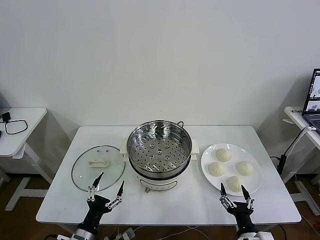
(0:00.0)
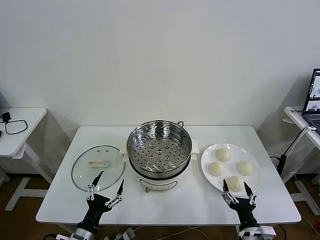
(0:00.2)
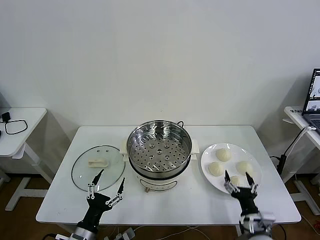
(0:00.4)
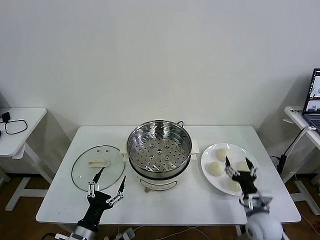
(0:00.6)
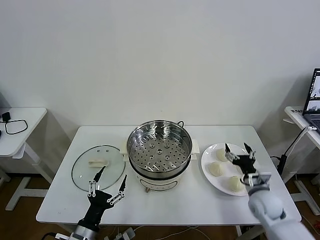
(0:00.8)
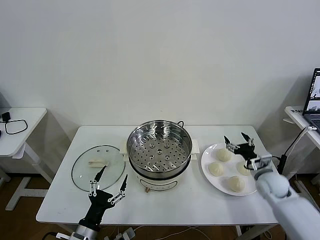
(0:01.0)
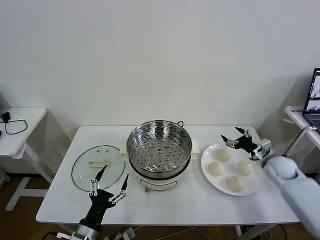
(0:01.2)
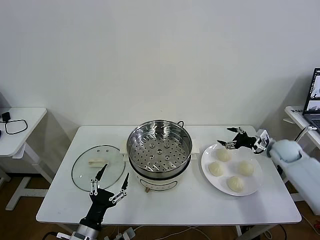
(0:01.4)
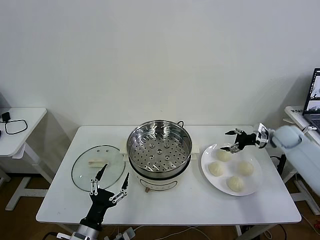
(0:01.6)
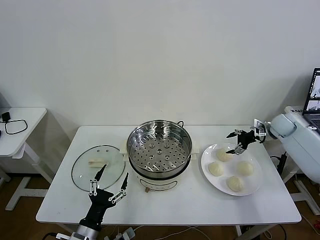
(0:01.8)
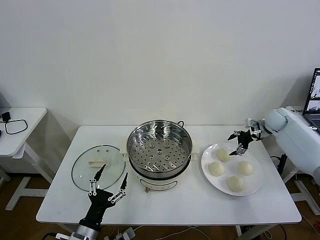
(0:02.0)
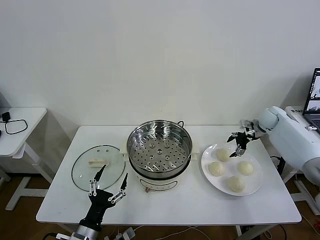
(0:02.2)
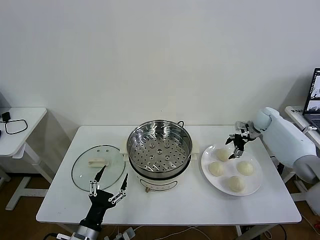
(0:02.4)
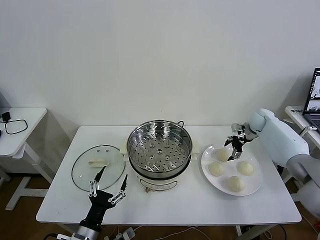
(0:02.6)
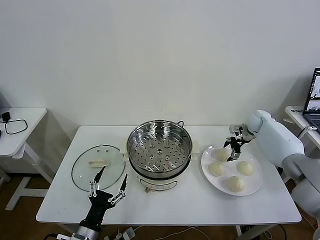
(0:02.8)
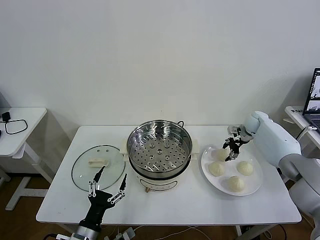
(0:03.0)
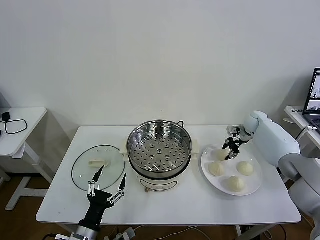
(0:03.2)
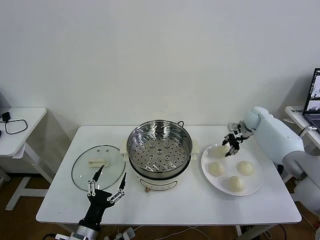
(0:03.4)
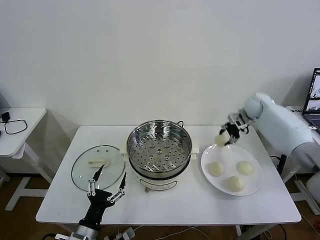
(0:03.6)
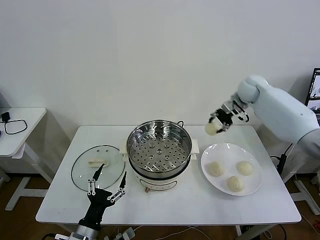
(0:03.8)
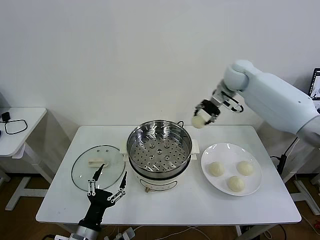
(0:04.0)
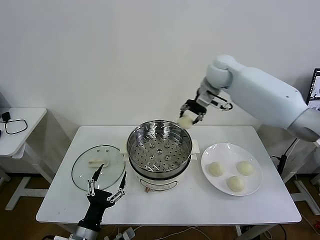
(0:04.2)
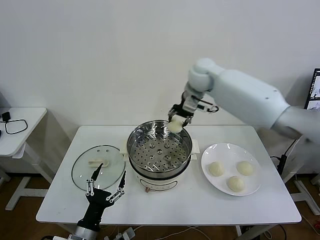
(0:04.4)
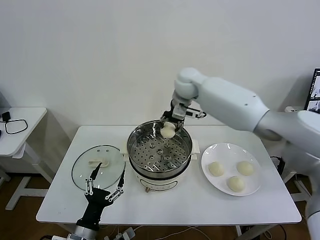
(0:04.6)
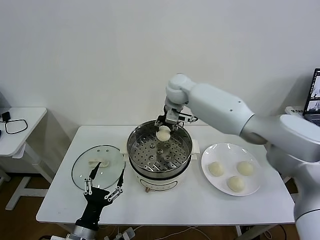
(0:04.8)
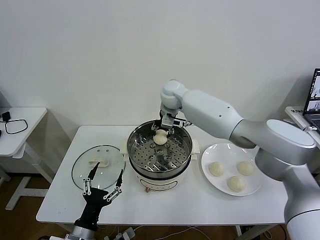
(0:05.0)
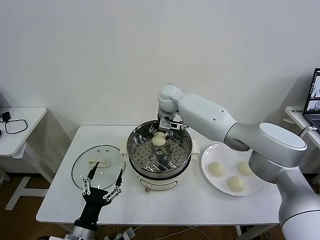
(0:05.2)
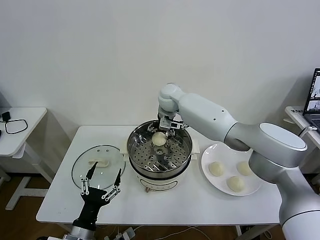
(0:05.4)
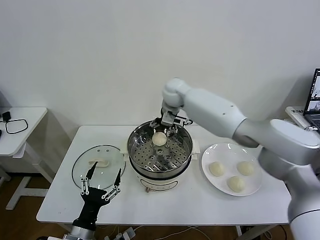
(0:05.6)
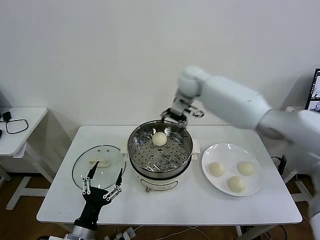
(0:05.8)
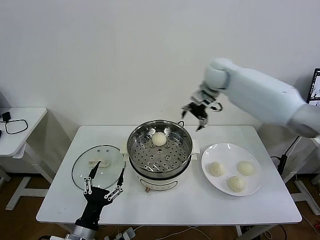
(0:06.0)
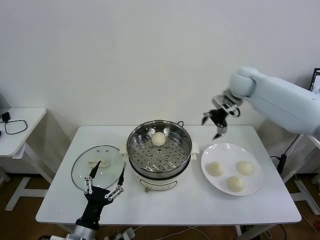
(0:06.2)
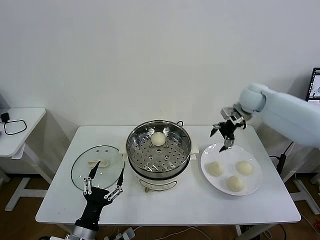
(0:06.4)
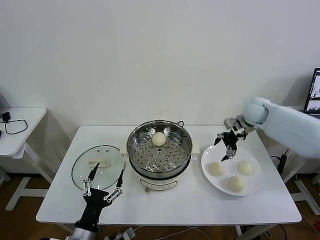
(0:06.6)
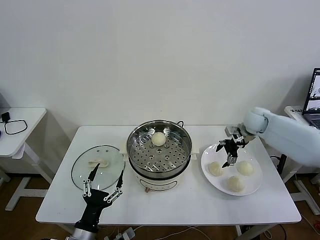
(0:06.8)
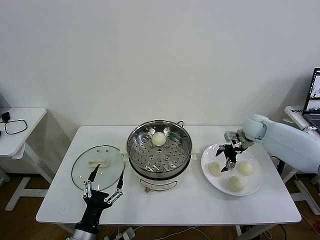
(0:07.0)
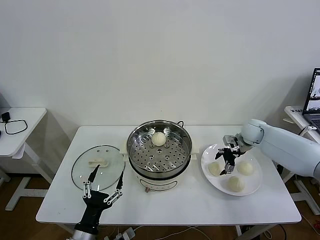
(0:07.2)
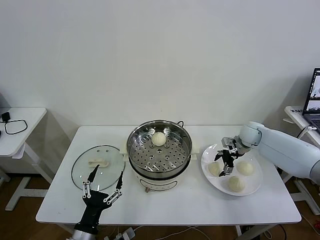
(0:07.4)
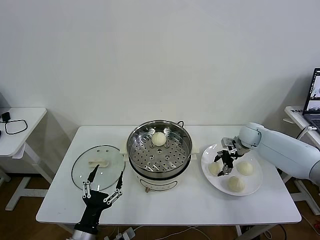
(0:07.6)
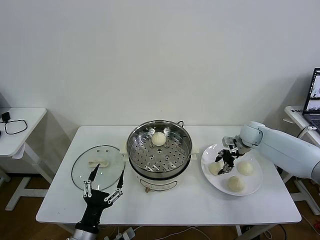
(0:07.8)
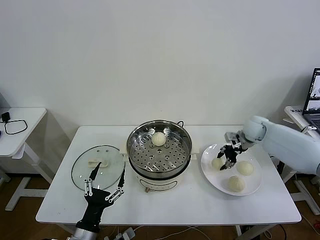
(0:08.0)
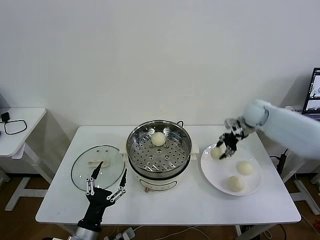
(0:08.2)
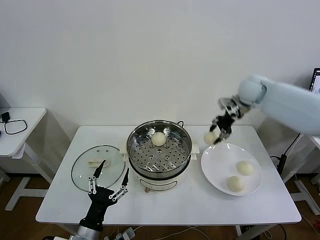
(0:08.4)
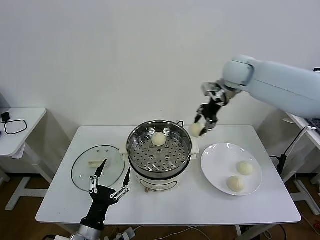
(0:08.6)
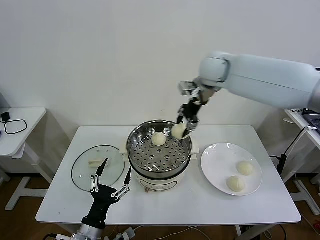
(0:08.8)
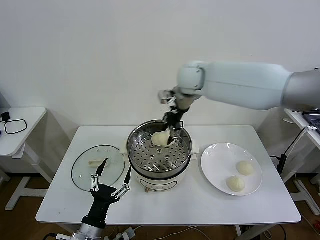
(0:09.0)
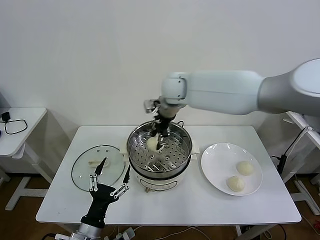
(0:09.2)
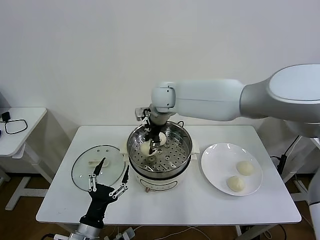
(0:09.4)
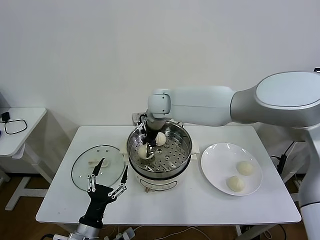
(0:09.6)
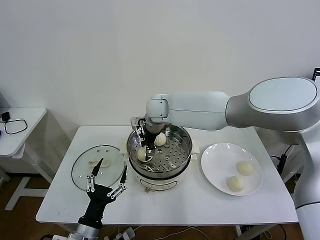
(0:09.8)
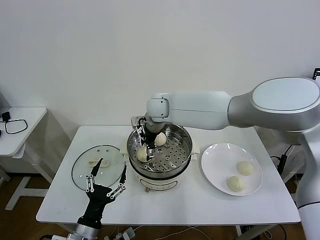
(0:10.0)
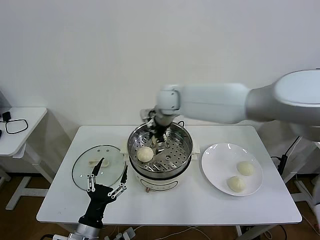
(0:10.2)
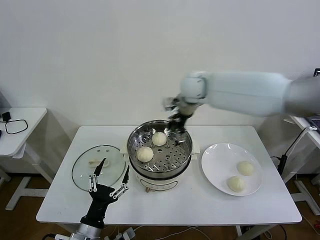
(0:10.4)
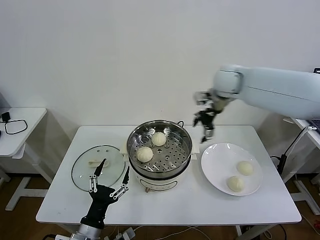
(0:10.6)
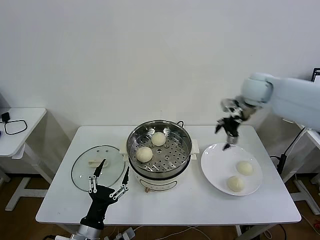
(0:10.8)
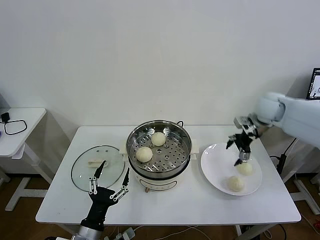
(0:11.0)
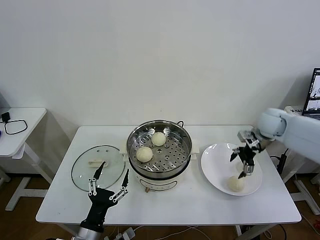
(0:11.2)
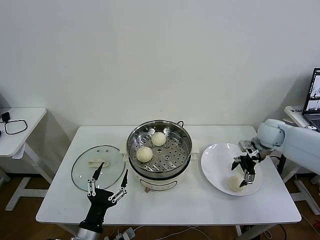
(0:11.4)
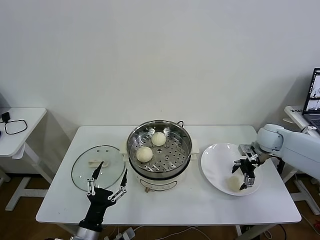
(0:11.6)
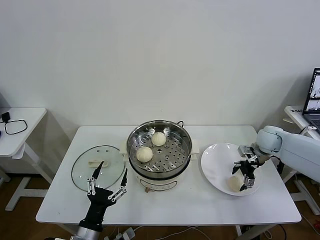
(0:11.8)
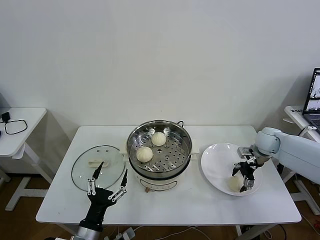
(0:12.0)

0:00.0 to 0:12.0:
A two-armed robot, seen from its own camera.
Task of the whole recording: take steamed baozi put them in steamer then cover it.
Step, 0:00.0 to 0:03.2: Grasp the baozi in the plate with right gripper.
Step, 0:03.4 to 0:05.4: Place the baozi on the steamer with right gripper.
Step, 0:05.6 to 0:07.8: Grasp the baozi in the plate with right gripper.
Step, 0:08.0 to 0:09.8: Place the baozi on the steamer with right gripper.
0:01.6 to 0:03.0: The right gripper shifts about 10 cm forward and to the left, and closes up.
0:03.0 to 0:04.4: The right gripper travels to the left and upward by about 35 cm.
0:04.4 to 0:06.0: The right gripper shifts roughly 10 cm to the right, and opens.
0:06.0 to 0:07.6: The right gripper travels downward and to the right by approximately 25 cm, and closes its fingers.
0:07.6 to 0:09.0: The right gripper moves to the left and upward, some 35 cm, and closes.
0:09.0 to 0:10.4: The right gripper goes some 5 cm to the right, and opens up.
0:10.4 to 0:12.0: The right gripper heads to the right and downward, covering some 35 cm.

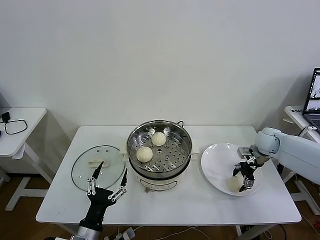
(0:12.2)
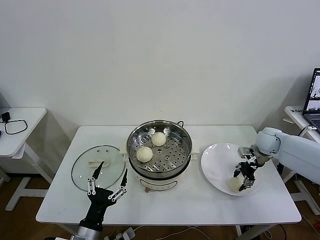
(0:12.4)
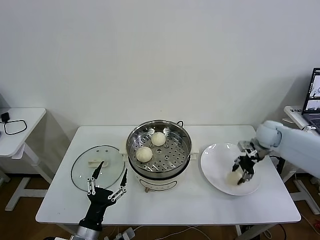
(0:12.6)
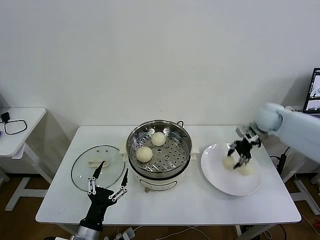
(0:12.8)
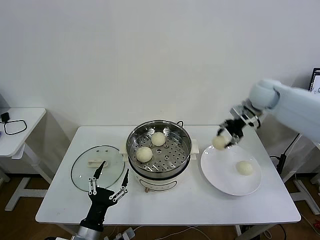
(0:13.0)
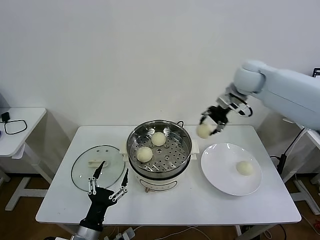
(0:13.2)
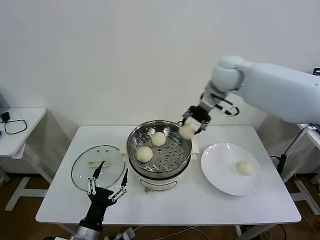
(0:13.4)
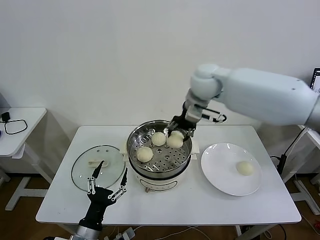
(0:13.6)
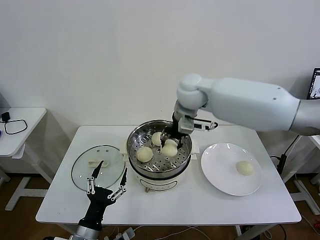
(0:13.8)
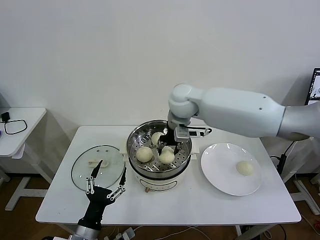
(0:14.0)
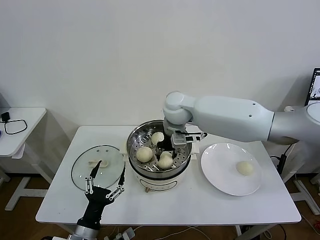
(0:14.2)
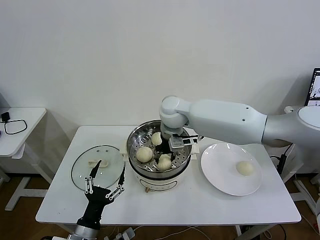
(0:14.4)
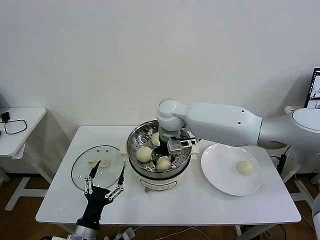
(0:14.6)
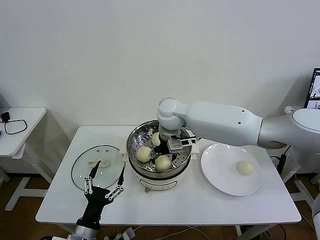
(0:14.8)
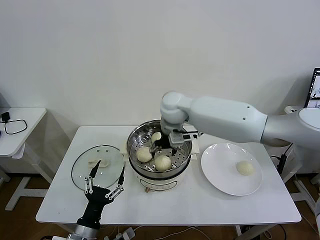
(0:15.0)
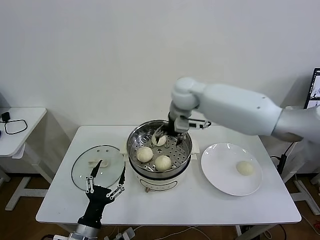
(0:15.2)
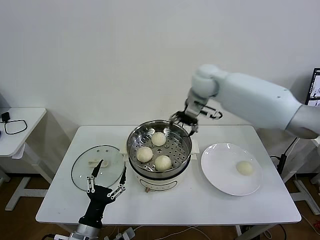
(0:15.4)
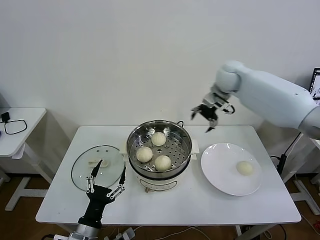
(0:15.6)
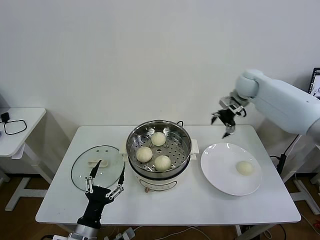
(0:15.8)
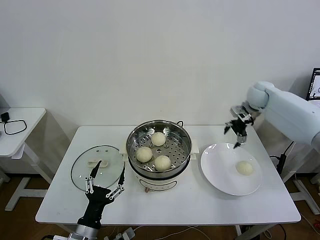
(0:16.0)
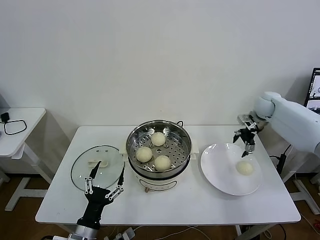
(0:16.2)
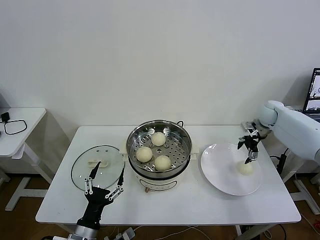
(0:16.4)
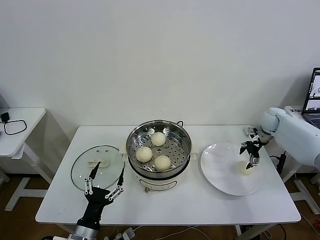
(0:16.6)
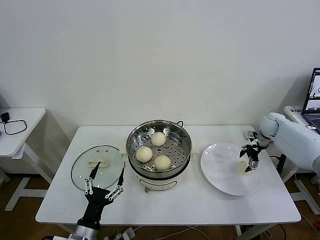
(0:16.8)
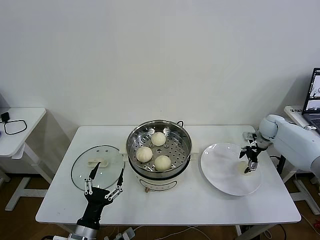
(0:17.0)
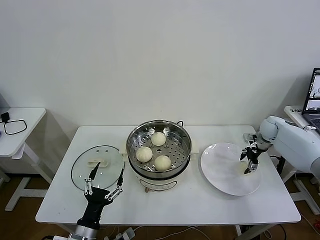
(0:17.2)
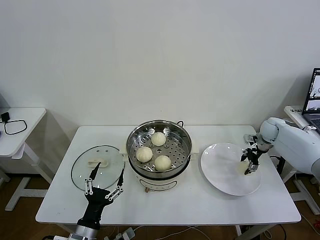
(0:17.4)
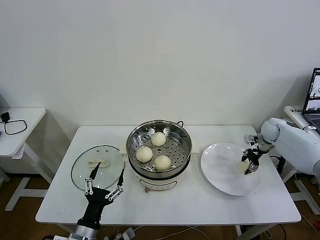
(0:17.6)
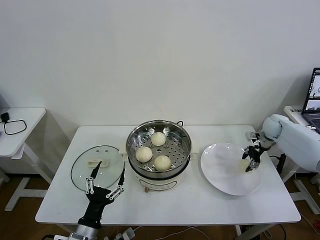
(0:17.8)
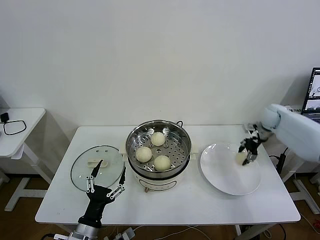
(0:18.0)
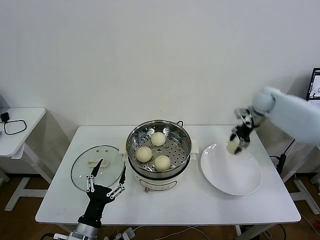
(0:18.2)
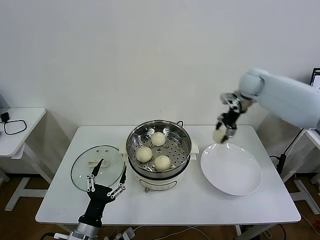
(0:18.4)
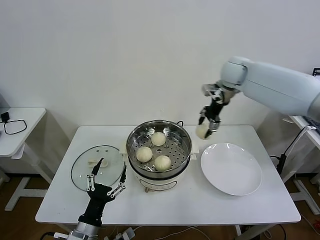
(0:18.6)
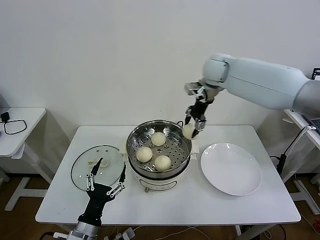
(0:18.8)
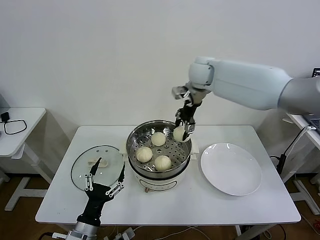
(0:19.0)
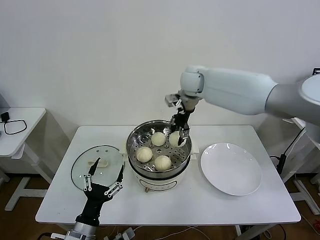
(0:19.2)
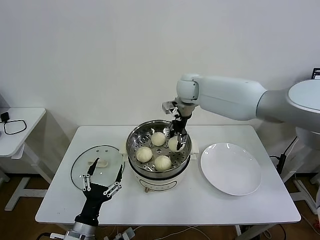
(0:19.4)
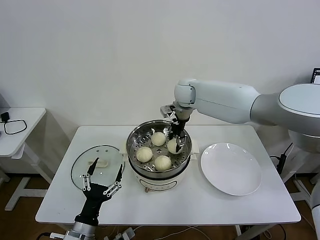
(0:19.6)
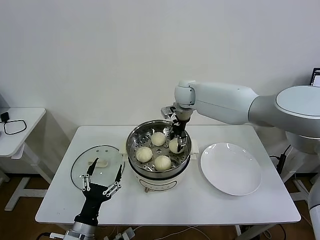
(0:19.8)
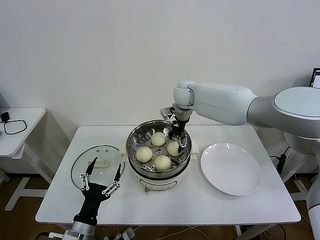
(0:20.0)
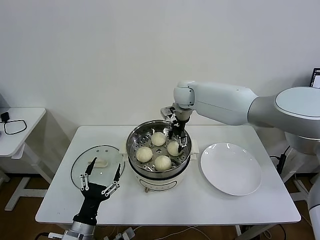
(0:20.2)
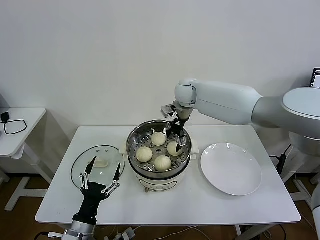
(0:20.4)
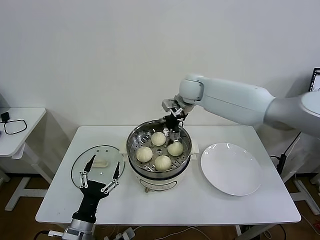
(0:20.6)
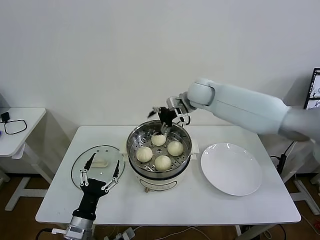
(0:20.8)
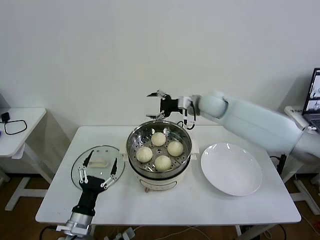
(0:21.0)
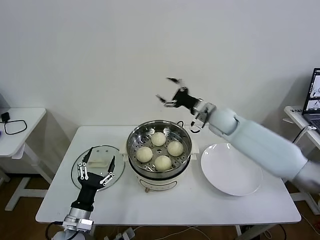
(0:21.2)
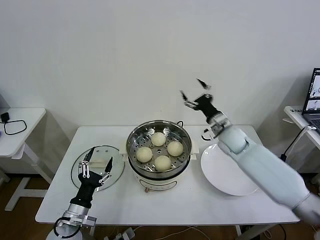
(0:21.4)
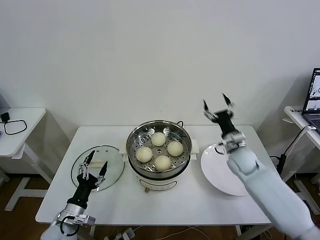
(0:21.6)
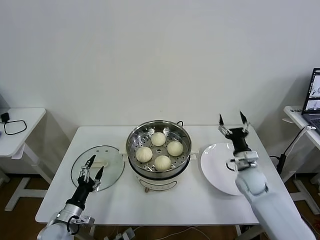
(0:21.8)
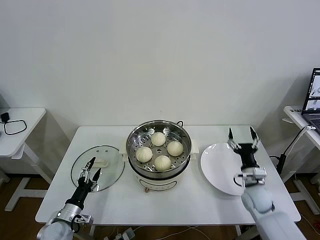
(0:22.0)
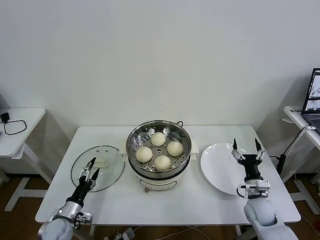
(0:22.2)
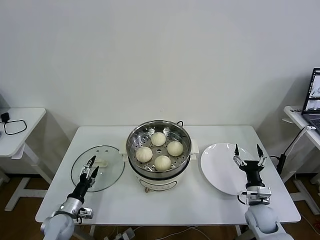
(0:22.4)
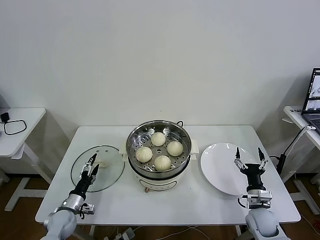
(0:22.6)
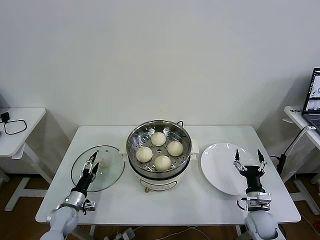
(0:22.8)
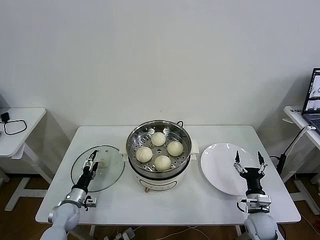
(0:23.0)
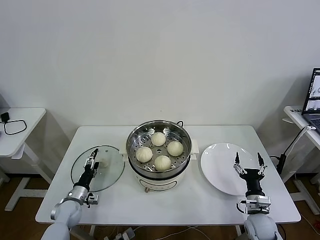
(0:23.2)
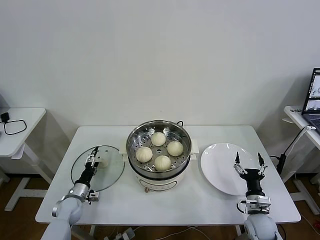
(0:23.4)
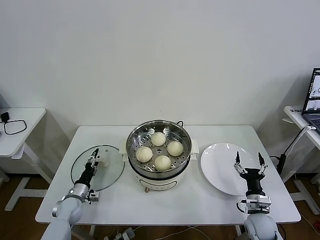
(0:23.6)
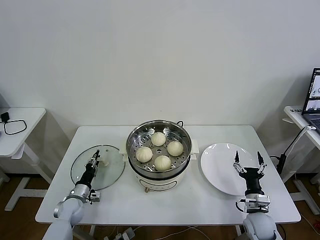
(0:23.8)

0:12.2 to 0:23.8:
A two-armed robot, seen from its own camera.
Task of the whole recording: take steamed baozi put them in steamer then cover it.
Step, 0:12.6 to 0:14.8: Place the baozi on the steamer with right gripper.
Step, 0:15.0 to 0:17.8: Grasp the baozi in the plate with right gripper.
Step, 0:18.0 to 0:20.0: Place the baozi on the steamer with right gripper.
0:12.2 to 0:13.6: The right gripper goes about 35 cm to the left and upward, and closes.
0:13.6 to 0:15.0: The right gripper shifts some 10 cm to the left and downward, and opens its fingers.
0:15.0 to 0:16.6: The right gripper moves to the right, some 40 cm.
0:16.6 to 0:18.0: The right gripper closes its fingers.
0:18.0 to 0:19.4: The right gripper shifts about 35 cm to the left.
0:19.4 to 0:21.0: The right gripper moves to the right and backward, approximately 10 cm, and opens up.
0:21.0 to 0:22.4: The left gripper moves to the left, downward and forward, roughly 15 cm. The right gripper heads downward, backward and to the right, covering some 40 cm.
0:22.4 to 0:23.8: The left gripper moves forward, roughly 5 cm, and closes up.
